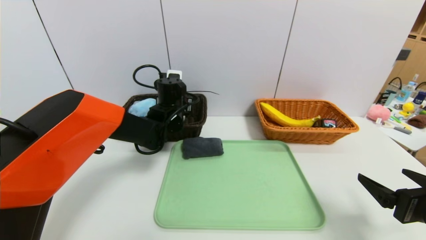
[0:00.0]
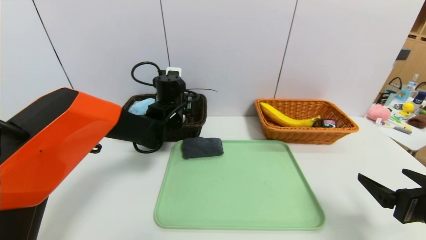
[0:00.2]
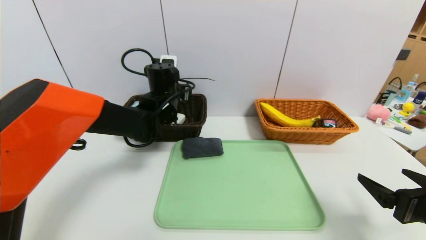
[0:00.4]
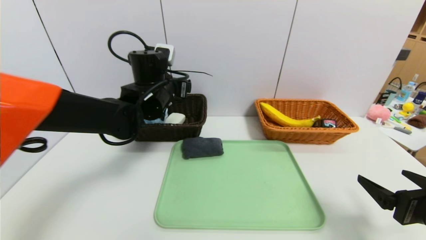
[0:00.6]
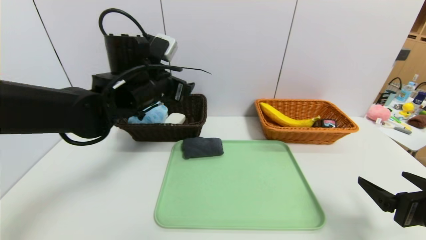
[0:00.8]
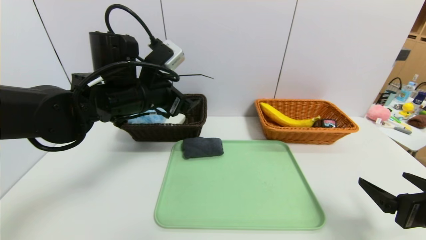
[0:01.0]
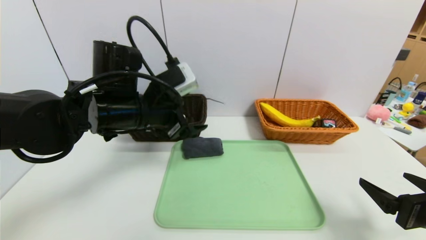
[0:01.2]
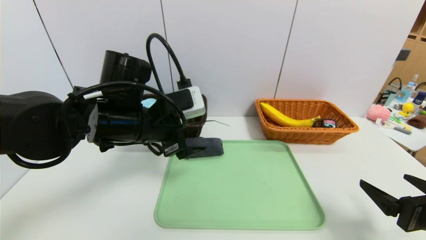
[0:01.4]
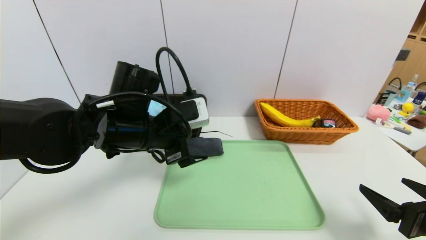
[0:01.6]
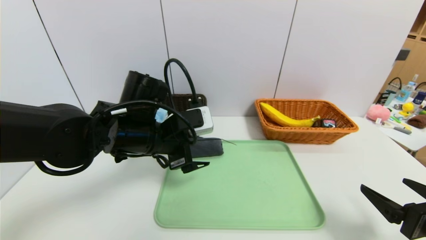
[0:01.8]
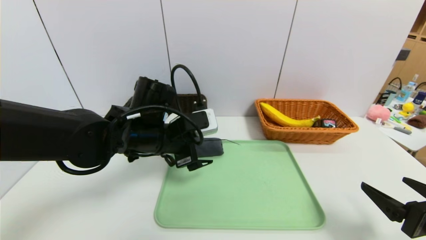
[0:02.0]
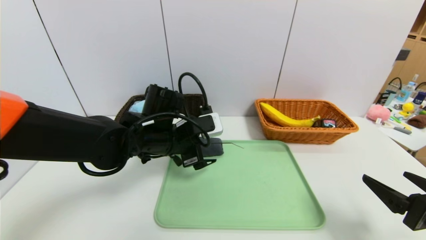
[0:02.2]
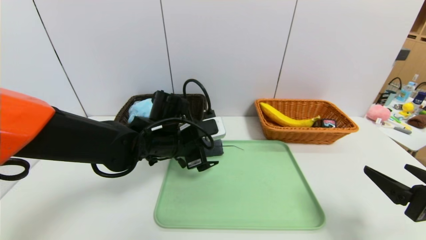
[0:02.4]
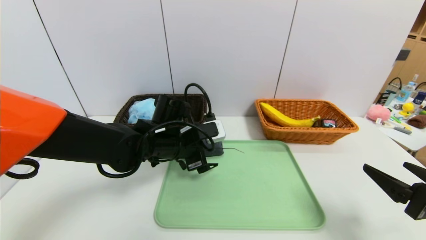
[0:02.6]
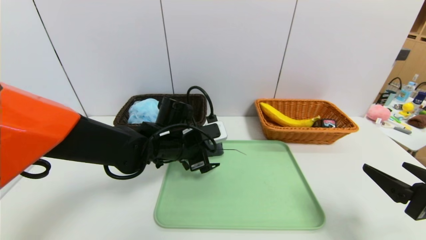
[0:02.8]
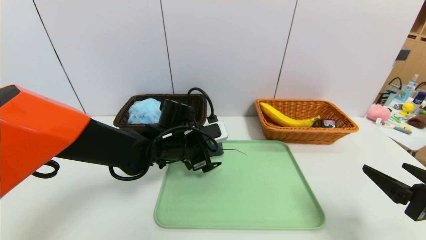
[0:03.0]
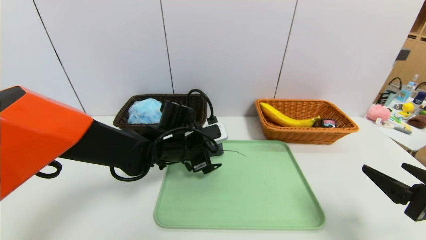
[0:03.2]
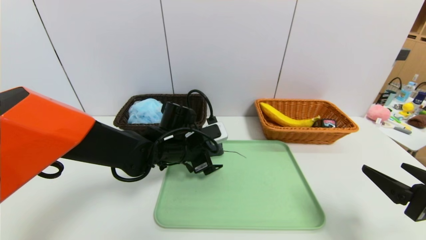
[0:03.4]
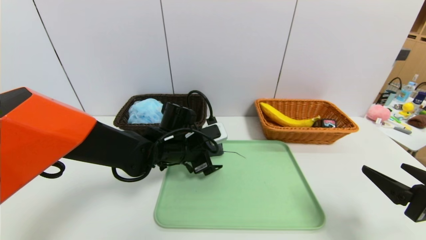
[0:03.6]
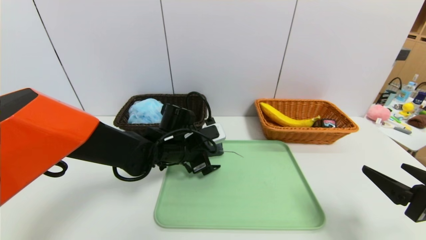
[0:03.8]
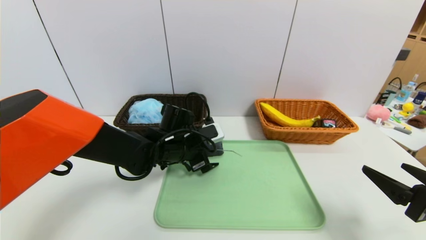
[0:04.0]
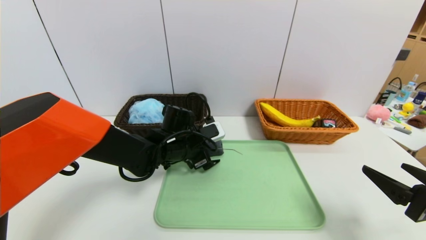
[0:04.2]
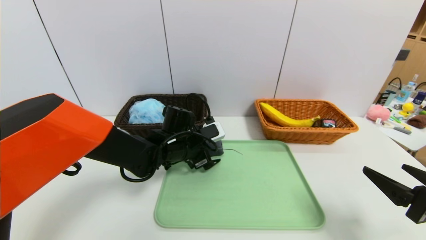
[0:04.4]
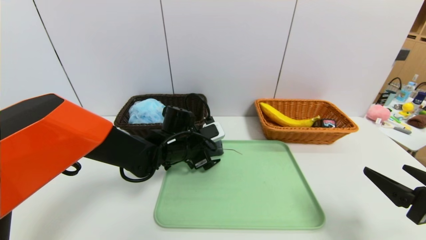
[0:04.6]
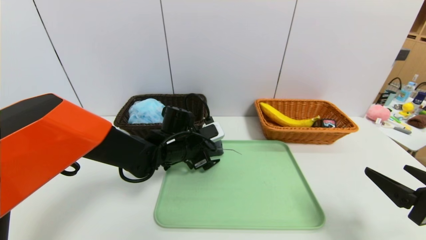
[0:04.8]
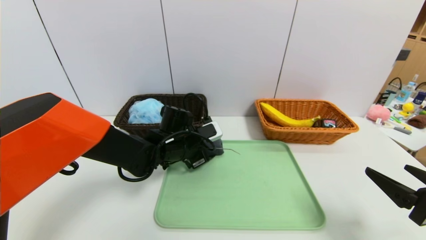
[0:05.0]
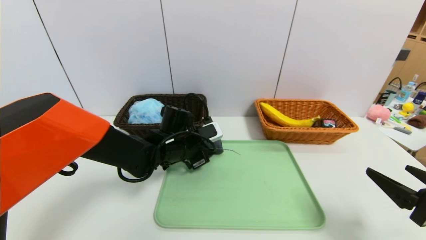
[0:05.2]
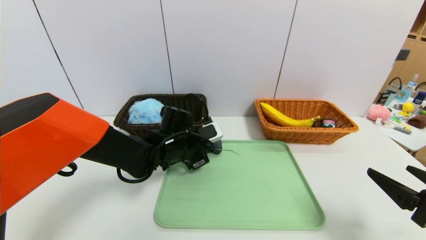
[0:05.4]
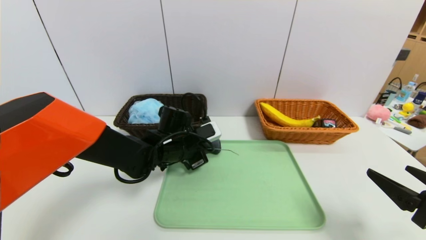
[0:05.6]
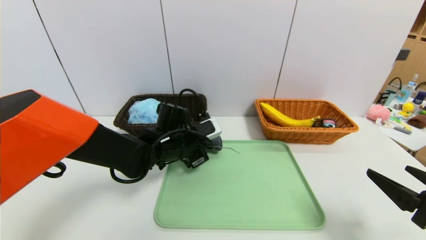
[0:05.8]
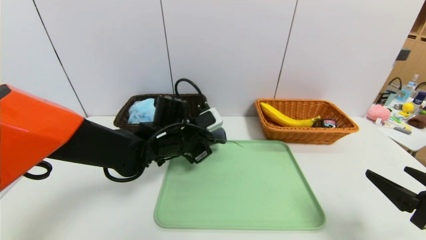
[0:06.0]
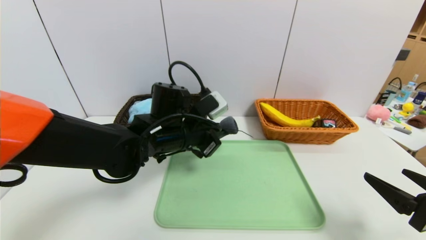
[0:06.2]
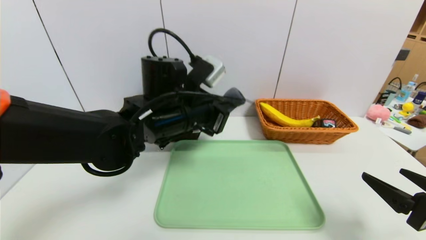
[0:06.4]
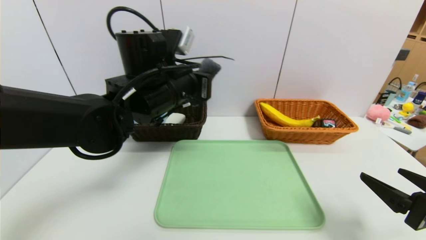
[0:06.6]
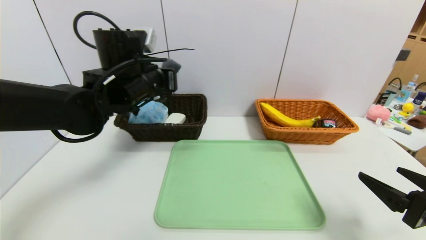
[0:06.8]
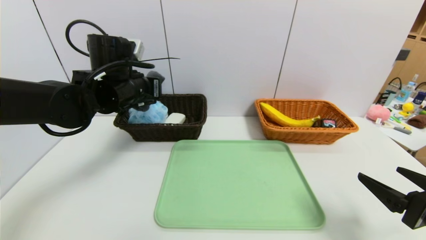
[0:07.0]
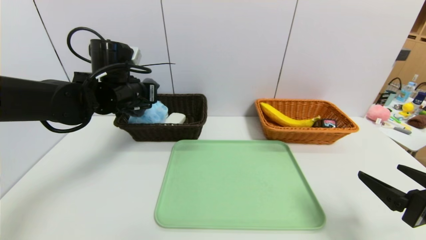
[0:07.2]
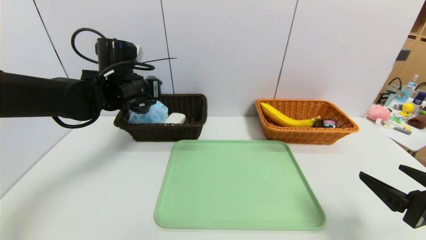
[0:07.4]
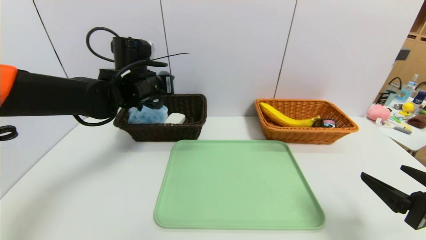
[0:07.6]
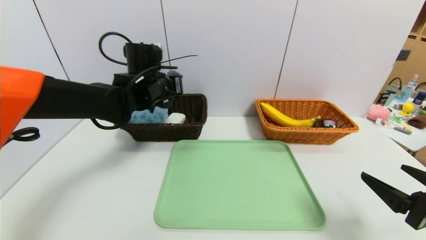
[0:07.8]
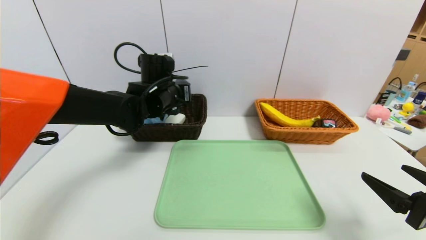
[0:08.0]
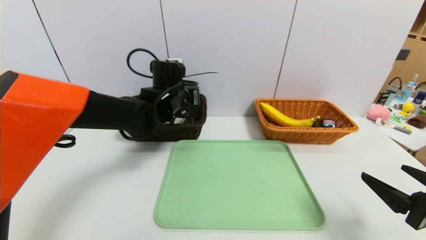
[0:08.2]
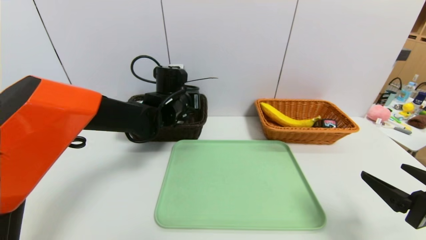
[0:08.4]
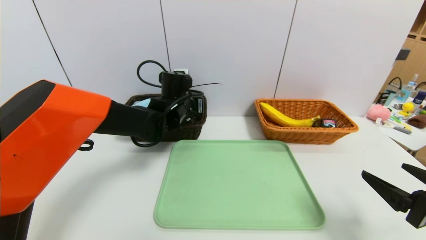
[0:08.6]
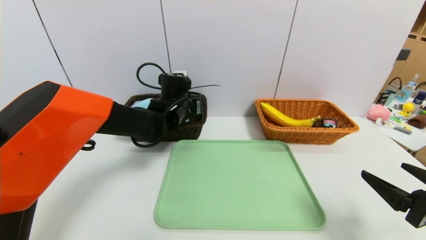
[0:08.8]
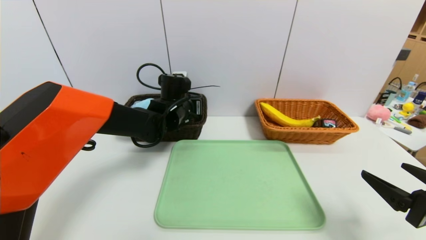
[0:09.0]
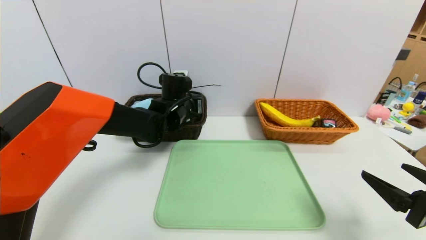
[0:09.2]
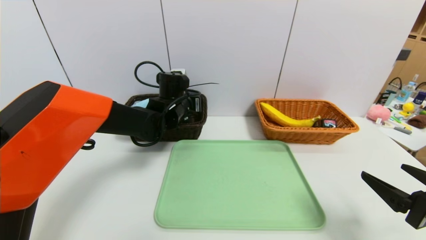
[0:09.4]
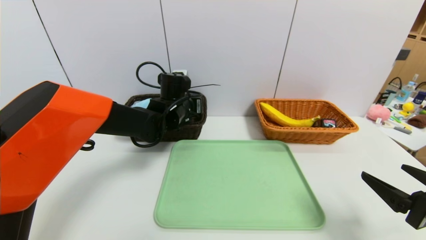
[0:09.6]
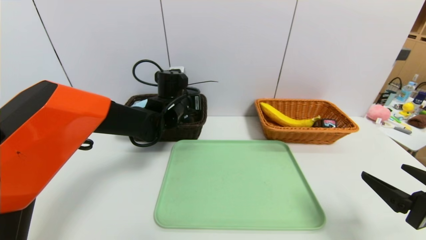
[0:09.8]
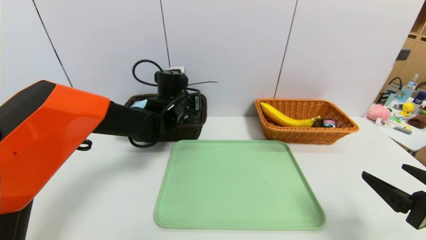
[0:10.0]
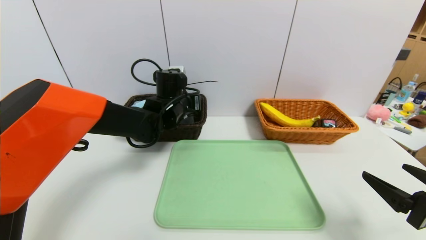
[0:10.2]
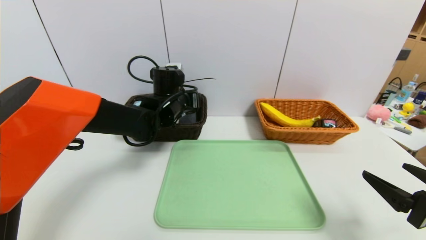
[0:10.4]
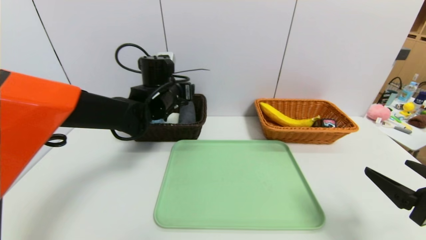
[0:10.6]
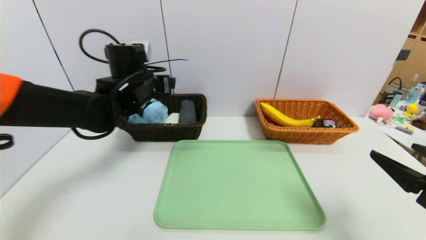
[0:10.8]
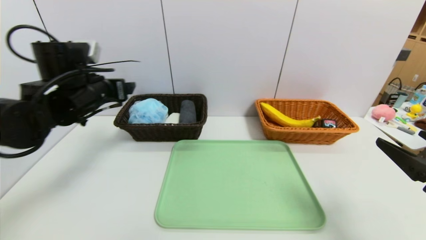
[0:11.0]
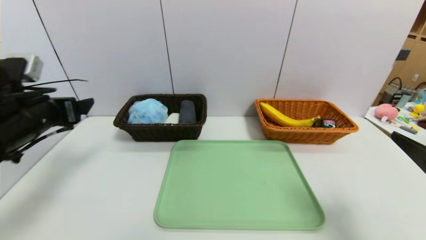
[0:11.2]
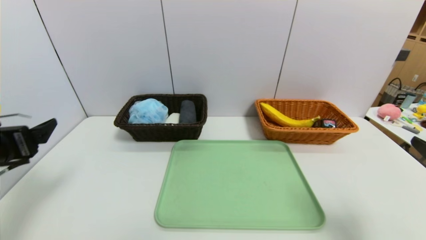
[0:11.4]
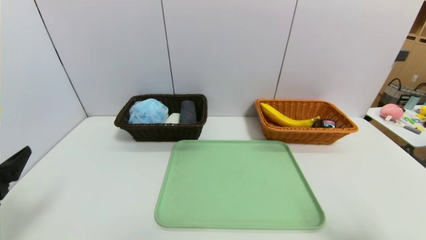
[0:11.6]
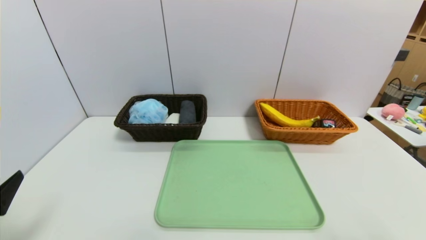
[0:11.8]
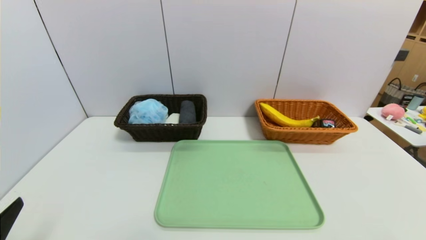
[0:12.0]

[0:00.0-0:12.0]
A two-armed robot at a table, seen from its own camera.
Task of the whole recording: place the food in the right basket with the right gripper, and place the non food items in the left basket with the left gripper.
Step, 0:00.6 to 0:10.6: Grasp the grey towel and put it in the left basket.
0:00.0 to 0:01.6: The left gripper goes about 15 cm backward.
0:01.6 to 0:03.0: The left gripper moves downward and forward, roughly 10 cm.
0:03.0 to 0:04.4: The grippers stay close to where they were, moving slightly.
0:04.4 to 0:06.0: The left gripper closes its fingers.
0:06.0 to 0:07.6: The left gripper goes some 15 cm upward, to the left and forward.
0:07.6 to 0:09.0: The left gripper travels downward and to the right by roughly 10 cm.
0:09.0 to 0:10.4: The left gripper opens.
0:10.4 to 0:12.0: The left gripper shifts about 40 cm backward and to the left; the right gripper moves backward, approximately 10 cm.

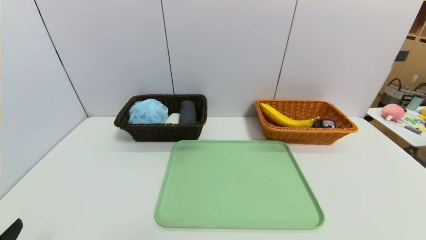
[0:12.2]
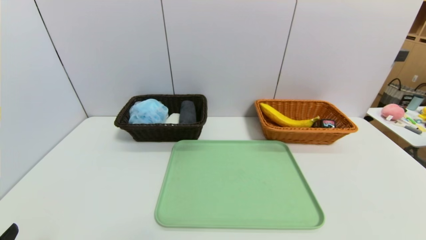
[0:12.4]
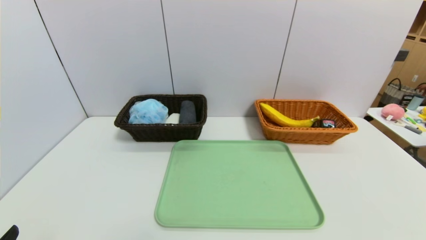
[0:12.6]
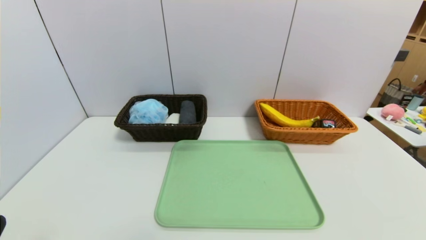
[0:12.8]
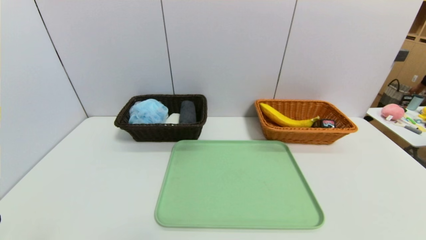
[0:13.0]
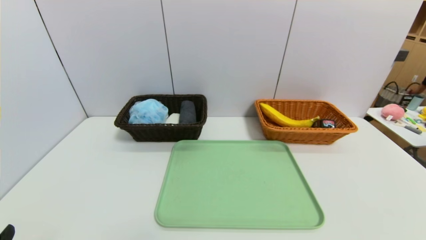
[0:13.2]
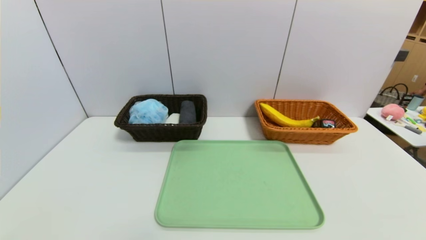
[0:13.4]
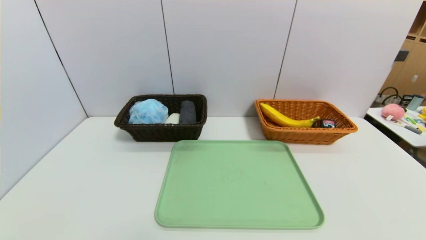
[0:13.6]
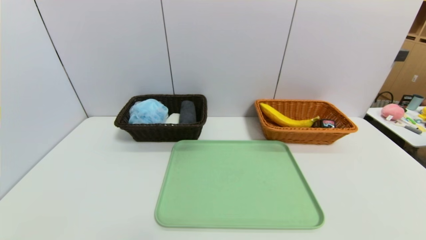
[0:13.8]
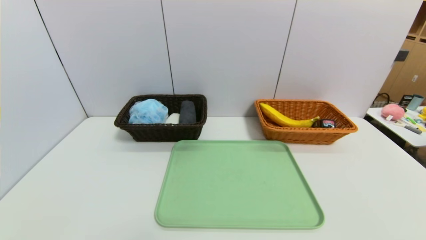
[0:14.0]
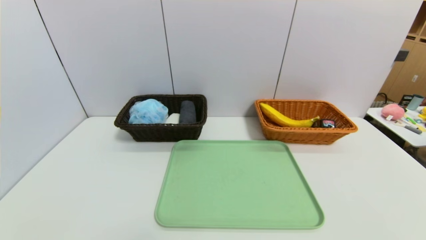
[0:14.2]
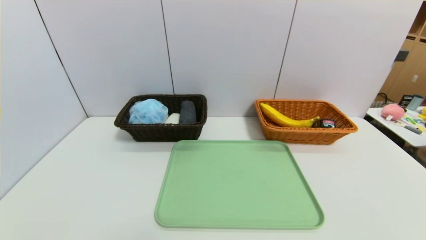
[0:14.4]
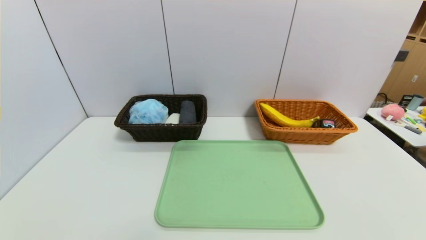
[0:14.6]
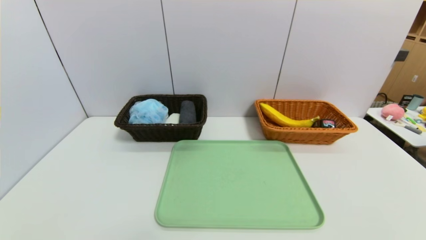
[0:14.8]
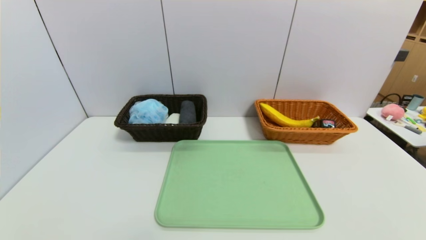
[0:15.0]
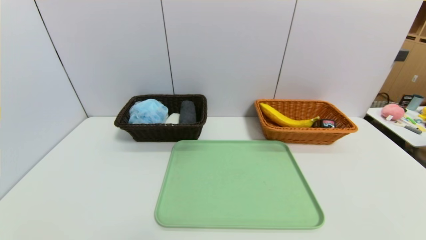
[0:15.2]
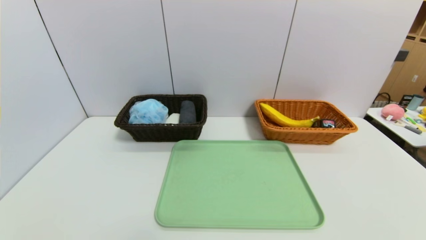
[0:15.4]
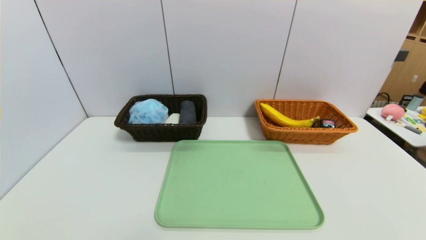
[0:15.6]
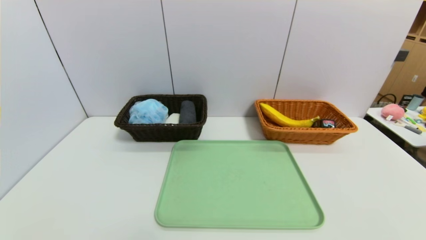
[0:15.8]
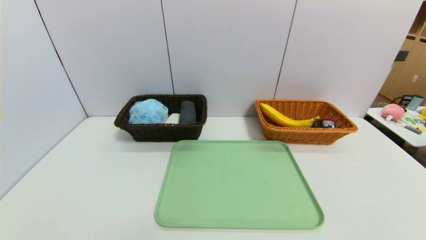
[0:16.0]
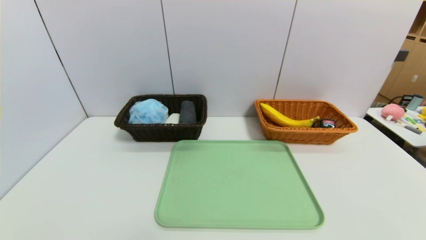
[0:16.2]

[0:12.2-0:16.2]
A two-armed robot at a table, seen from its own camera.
Task of the whole recording: place the food in the right basket with the right gripper, and place the non food items in the left basket with the left gripper.
0:12.2 to 0:13.6: The right gripper shifts some 5 cm downward.
0:14.8 to 0:16.2: Neither gripper changes place.
